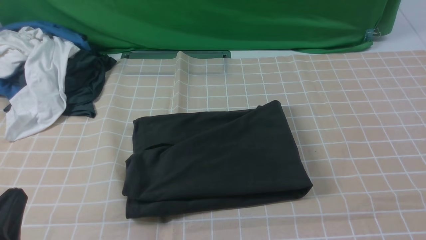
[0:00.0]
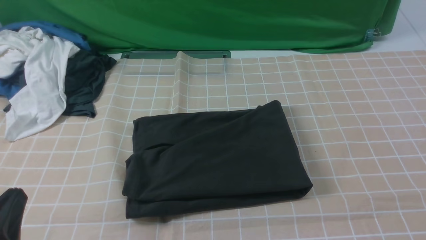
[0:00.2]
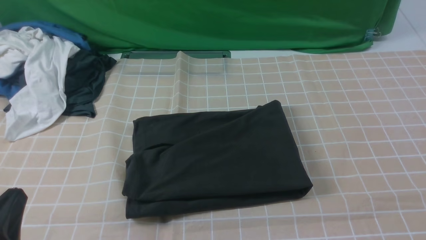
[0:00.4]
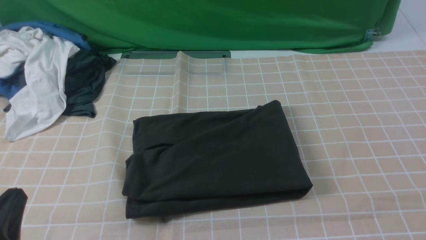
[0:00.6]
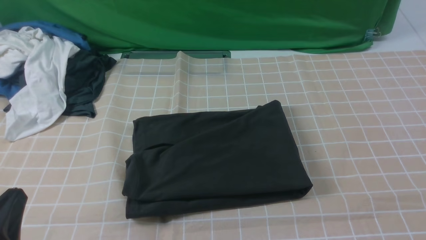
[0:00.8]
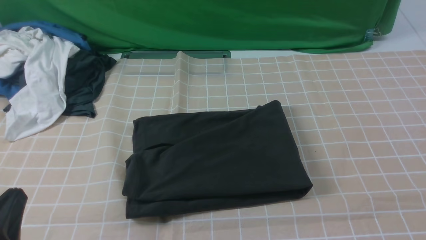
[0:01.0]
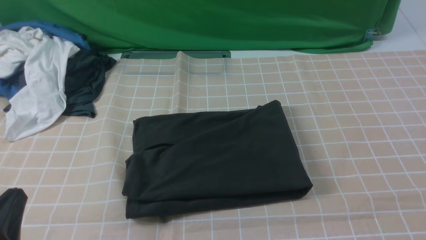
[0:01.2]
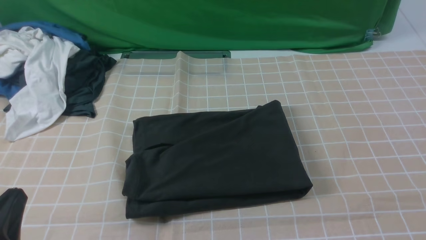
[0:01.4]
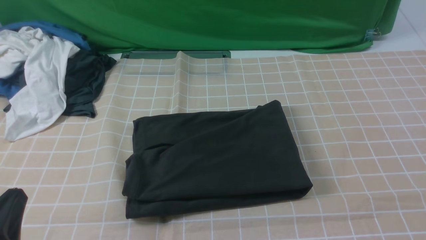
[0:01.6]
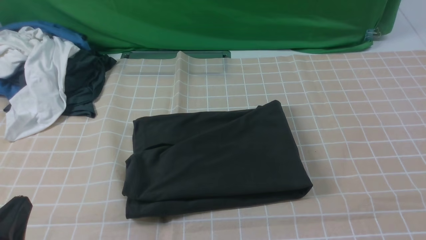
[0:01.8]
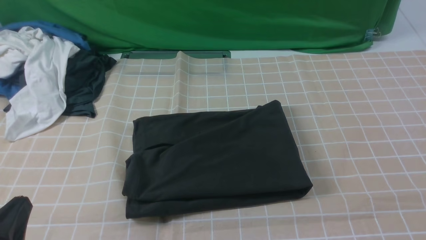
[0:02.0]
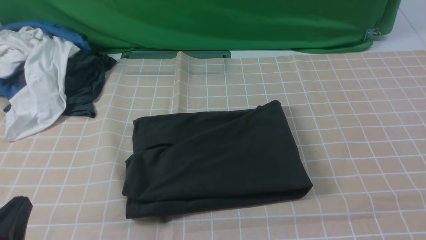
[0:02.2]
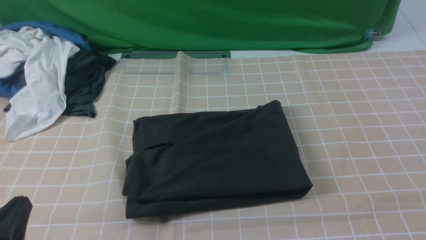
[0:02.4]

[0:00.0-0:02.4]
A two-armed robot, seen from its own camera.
0:00.0 to 0:02.4: Both grippers stay put.
